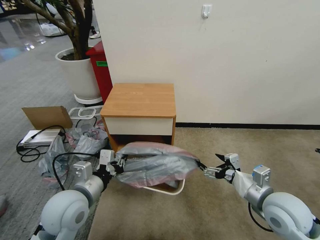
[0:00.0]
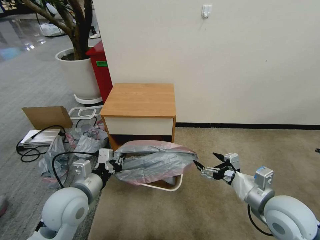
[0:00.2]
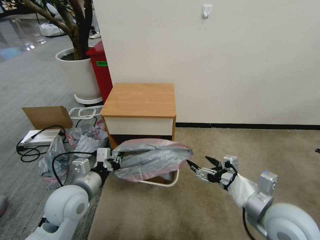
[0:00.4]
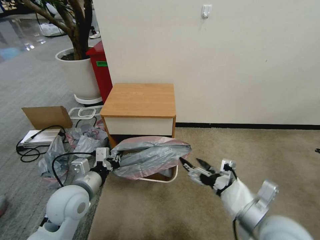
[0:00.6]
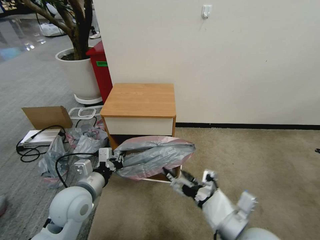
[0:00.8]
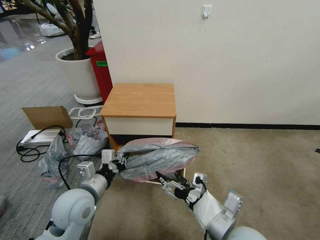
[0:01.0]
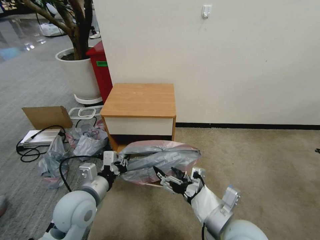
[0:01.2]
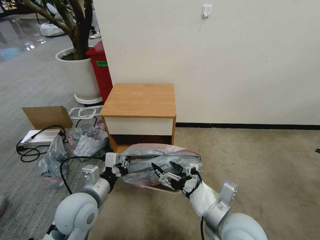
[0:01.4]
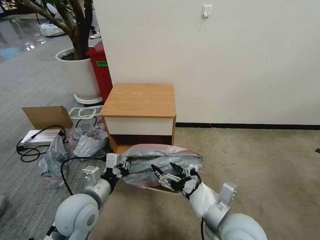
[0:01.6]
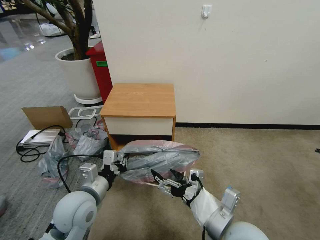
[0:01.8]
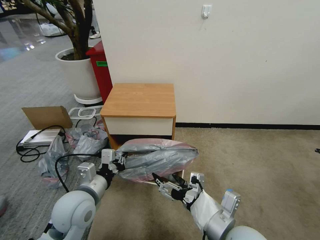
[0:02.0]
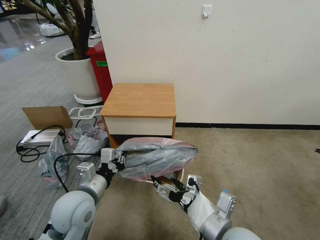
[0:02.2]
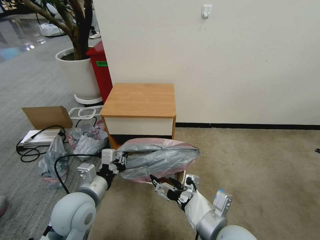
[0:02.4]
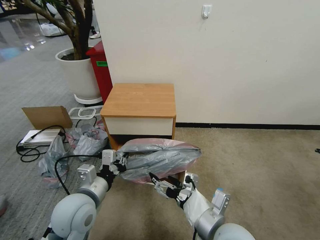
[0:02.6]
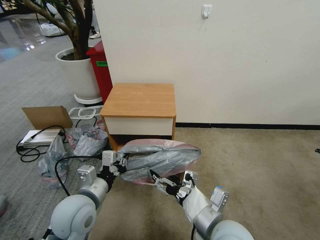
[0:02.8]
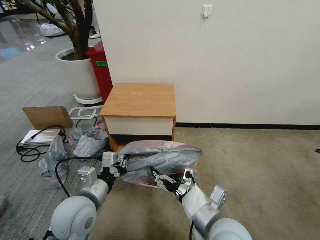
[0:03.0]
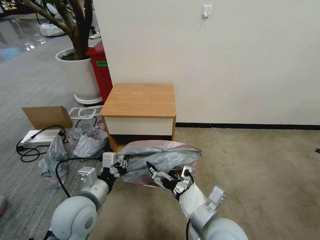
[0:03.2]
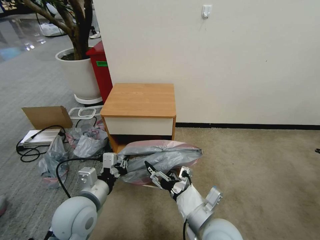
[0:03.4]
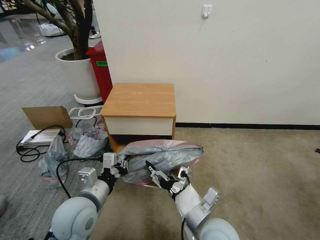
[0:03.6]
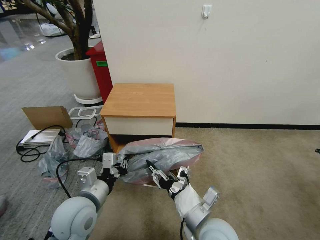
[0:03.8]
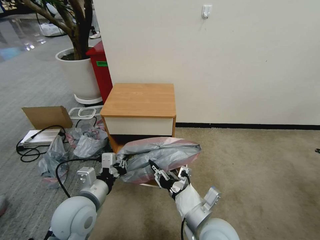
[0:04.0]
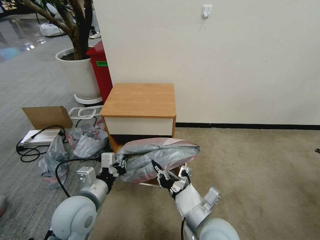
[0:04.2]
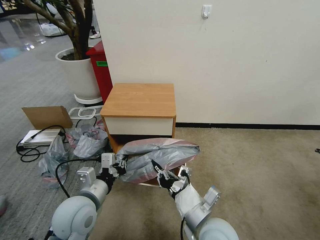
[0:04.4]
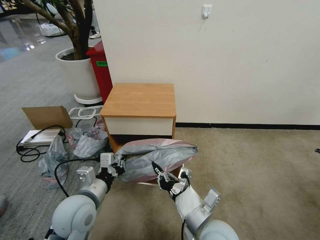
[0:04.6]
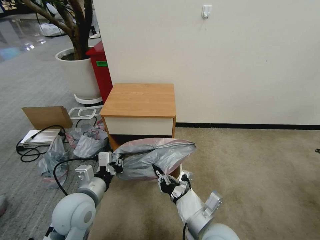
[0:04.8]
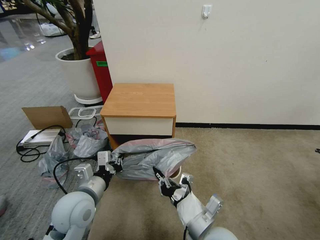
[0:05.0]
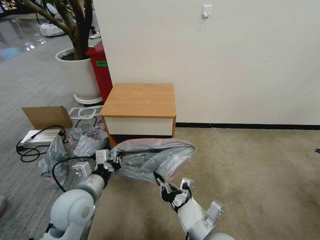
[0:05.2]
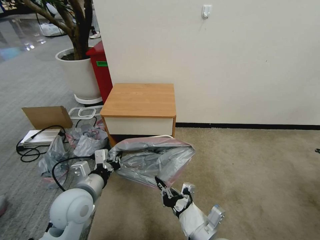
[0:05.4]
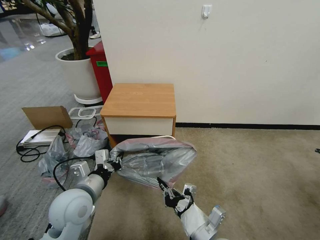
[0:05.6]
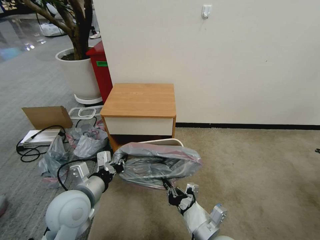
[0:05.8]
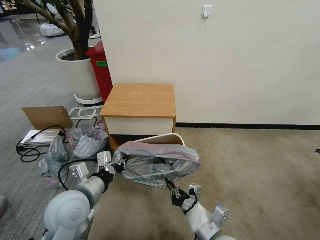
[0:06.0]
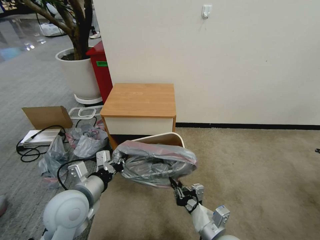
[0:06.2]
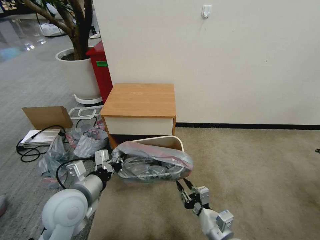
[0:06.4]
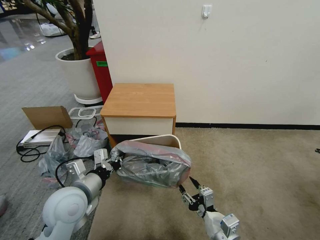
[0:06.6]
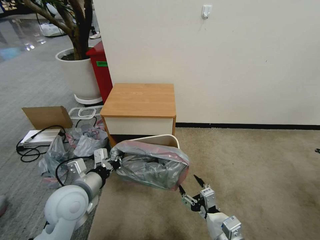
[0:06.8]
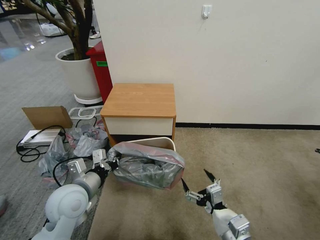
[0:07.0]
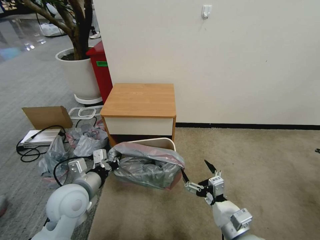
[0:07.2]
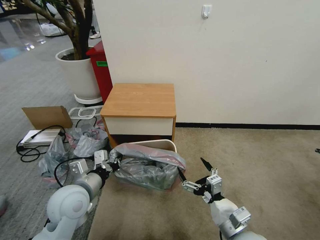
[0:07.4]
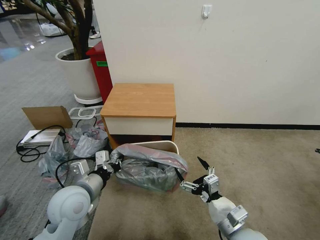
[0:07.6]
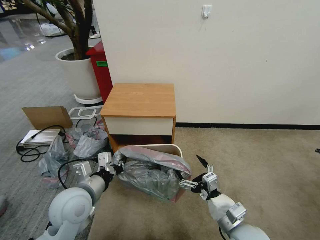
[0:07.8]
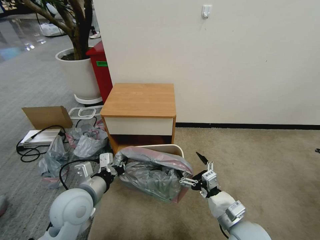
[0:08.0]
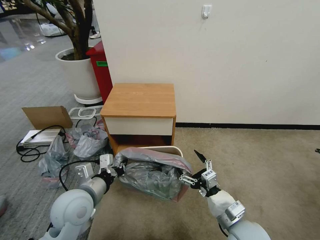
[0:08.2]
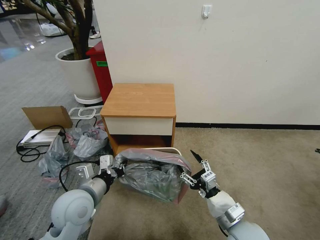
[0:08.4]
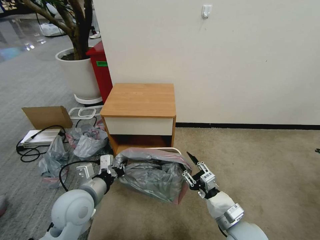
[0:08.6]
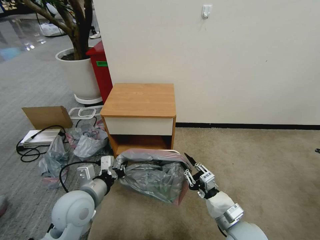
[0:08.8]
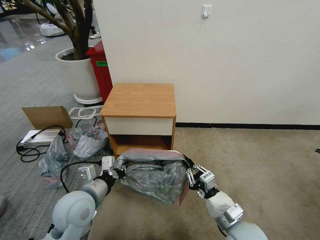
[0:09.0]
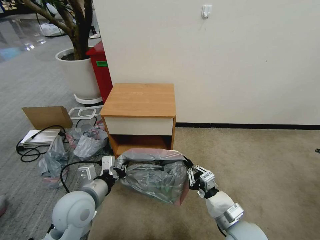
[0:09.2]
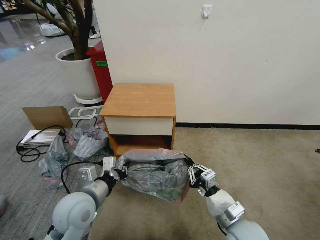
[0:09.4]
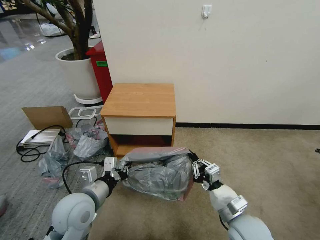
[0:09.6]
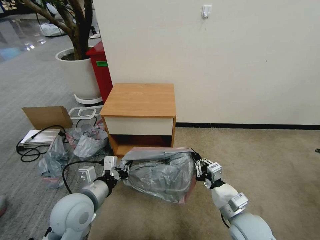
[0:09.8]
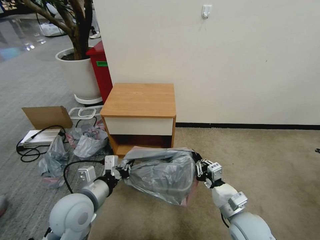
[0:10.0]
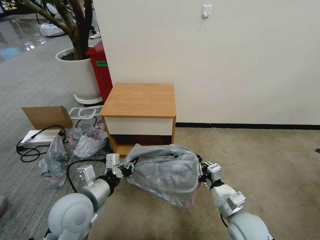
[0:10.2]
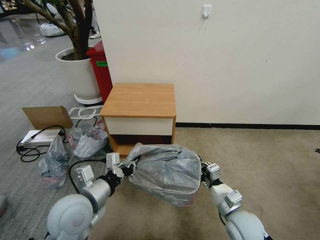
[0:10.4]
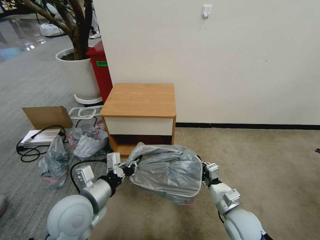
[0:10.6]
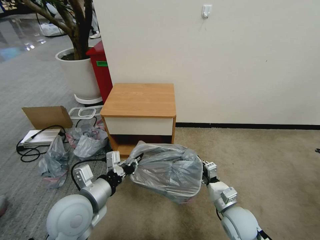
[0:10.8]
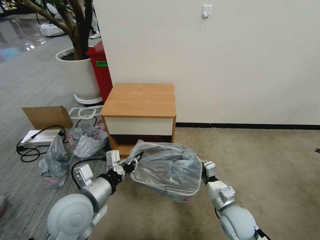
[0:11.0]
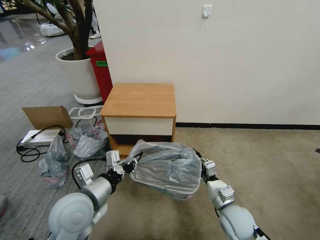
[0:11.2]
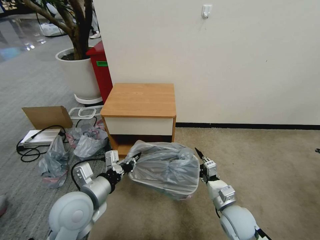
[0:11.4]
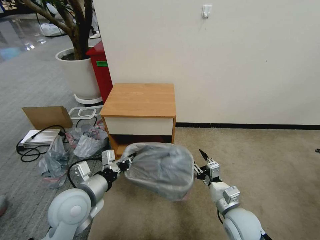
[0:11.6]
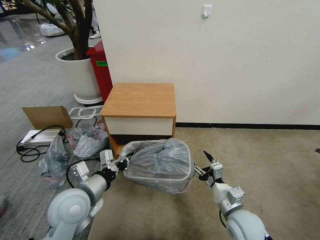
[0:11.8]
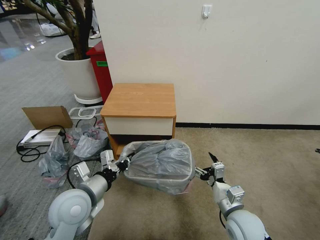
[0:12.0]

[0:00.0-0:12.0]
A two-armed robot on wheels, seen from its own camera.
Task of the whole recording: Pick up the garbage bag from the table and place it over the trash can.
0:00.0 to 0:01.6: The right gripper goes about 15 cm to the left.
0:01.6 to 0:03.0: The grippers stay close to where they were, moving slightly.
0:03.0 to 0:04.4: The right gripper closes.
0:04.4 to 0:06.0: The right gripper travels downward by approximately 5 cm.
0:06.0 to 0:07.6: The right gripper travels to the right by about 5 cm, and opens.
0:07.6 to 0:09.0: The right gripper closes up.
0:09.0 to 0:10.4: The right gripper shifts by some 5 cm.
0:10.4 to 0:12.0: The right gripper opens.

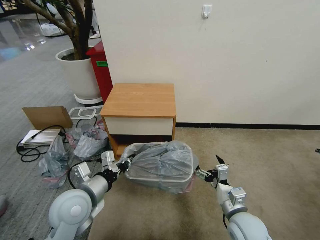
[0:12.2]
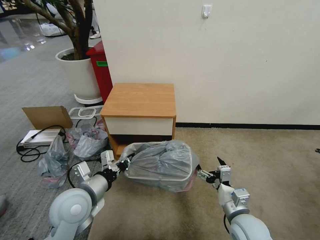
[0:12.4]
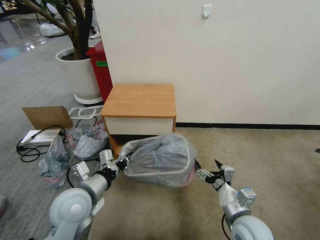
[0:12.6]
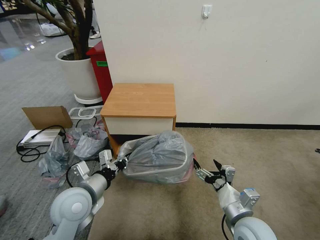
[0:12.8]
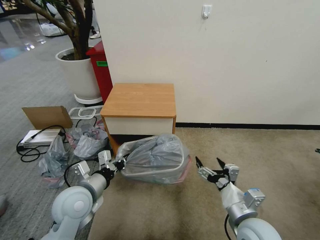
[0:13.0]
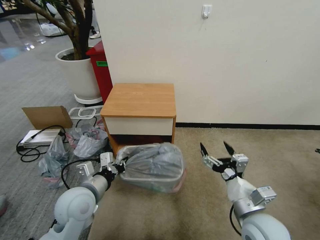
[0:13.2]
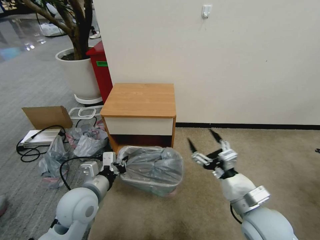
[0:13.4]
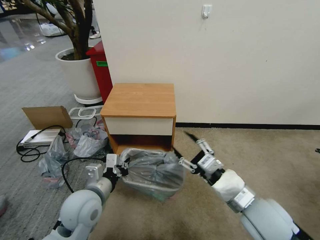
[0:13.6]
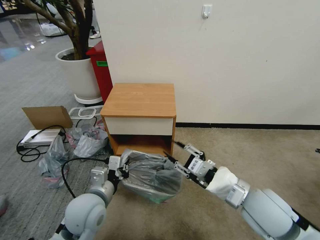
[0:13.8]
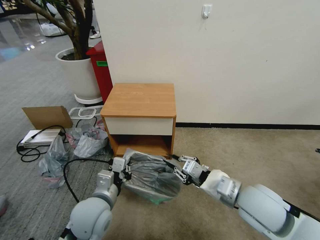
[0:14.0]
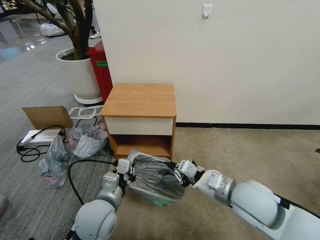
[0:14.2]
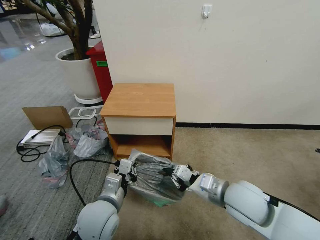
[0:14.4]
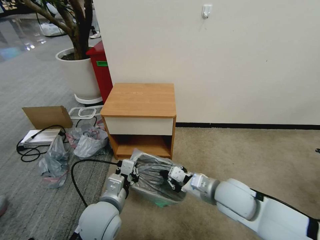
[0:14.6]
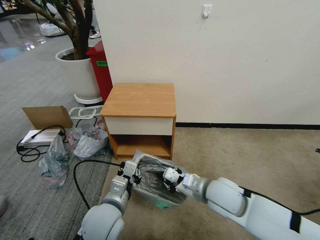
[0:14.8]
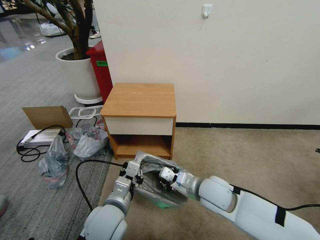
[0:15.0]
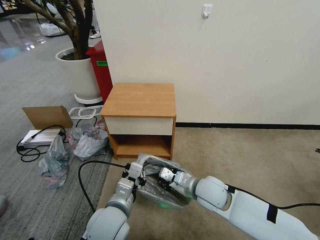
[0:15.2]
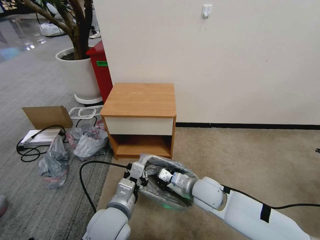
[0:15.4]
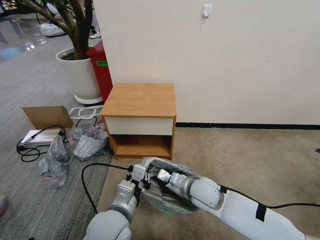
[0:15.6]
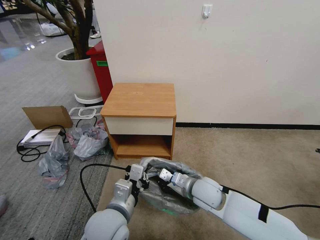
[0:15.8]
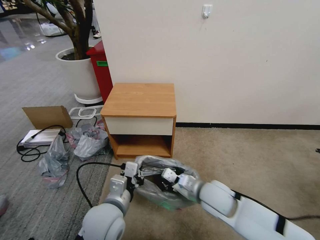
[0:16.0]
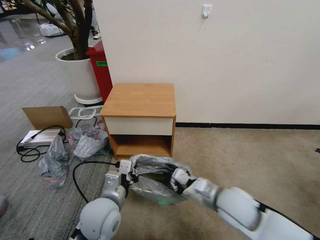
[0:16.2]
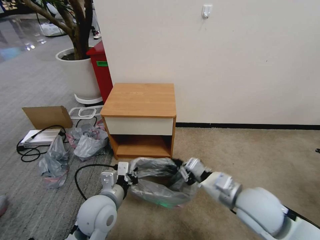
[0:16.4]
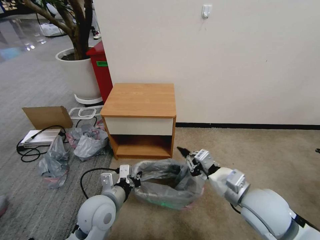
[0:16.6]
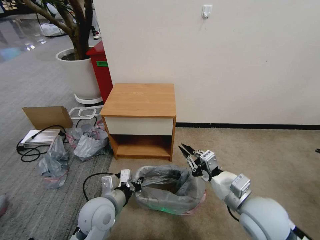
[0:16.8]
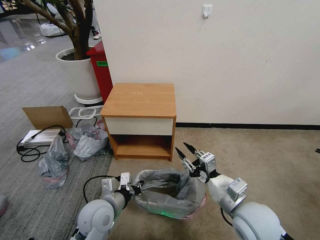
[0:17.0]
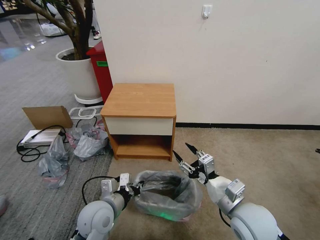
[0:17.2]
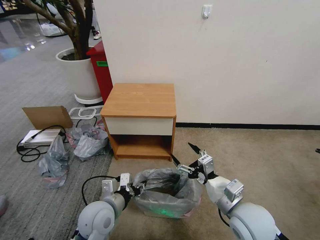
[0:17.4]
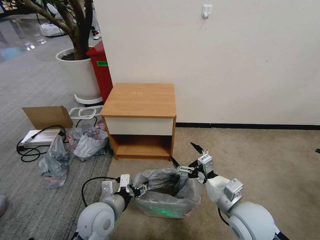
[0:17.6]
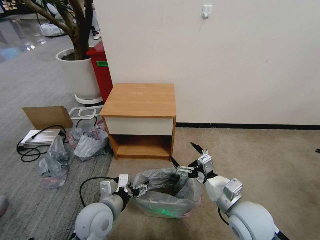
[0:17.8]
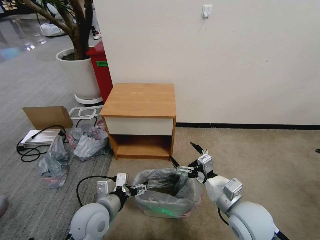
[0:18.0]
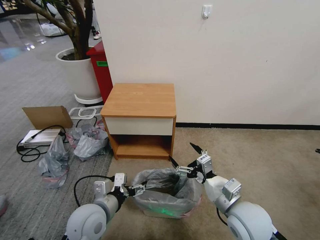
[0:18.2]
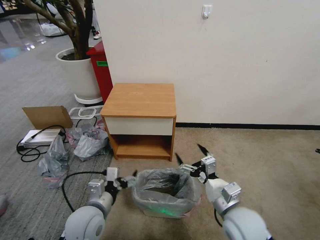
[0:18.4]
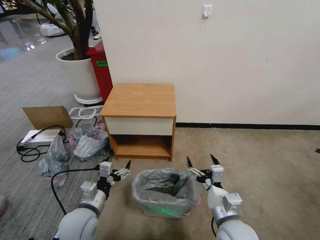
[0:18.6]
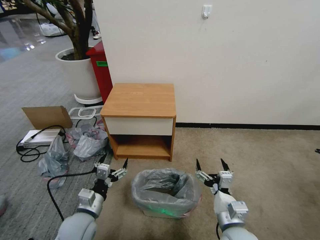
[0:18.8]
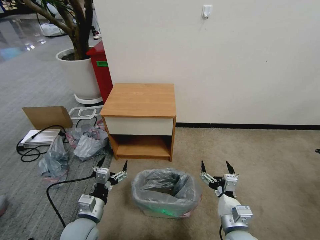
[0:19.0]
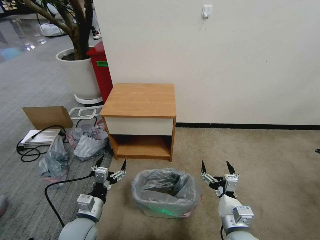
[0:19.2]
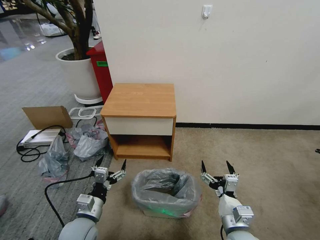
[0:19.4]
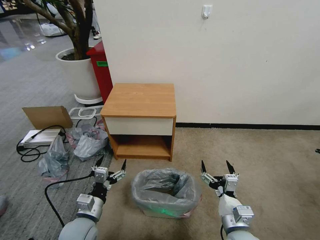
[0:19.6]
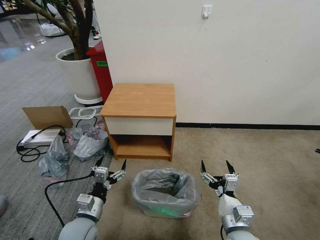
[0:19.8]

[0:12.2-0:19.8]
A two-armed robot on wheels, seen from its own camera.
Task of the whole recording: Pick up the garbage bag from the table and place it over the trash can.
0:12.2 to 0:13.8: The right gripper travels upward by approximately 10 cm, and closes.
0:13.8 to 0:15.2: The left gripper shifts approximately 10 cm to the right, while the right gripper shifts some 15 cm forward, to the left and downward, and closes its fingers.
0:15.2 to 0:16.8: The right gripper shifts about 15 cm backward, to the right and upward, while the left gripper moves approximately 5 cm.
0:16.8 to 0:18.2: The right gripper opens. The left gripper opens up.
0:18.2 to 0:19.8: The right gripper is displaced downward and backward by roughly 10 cm. Meanwhile the left gripper is displaced downward by approximately 5 cm.

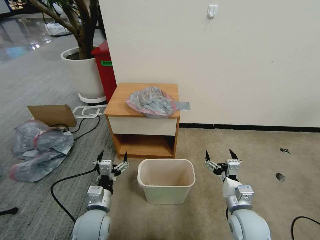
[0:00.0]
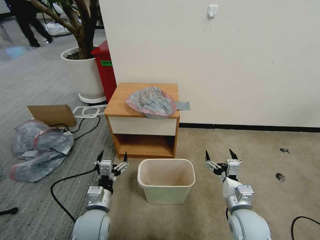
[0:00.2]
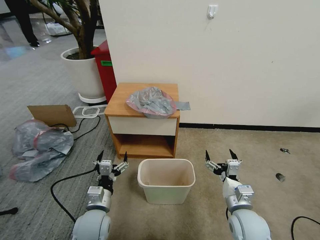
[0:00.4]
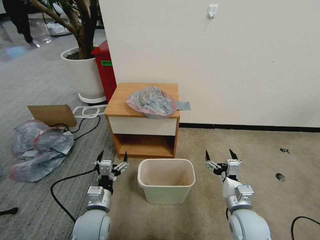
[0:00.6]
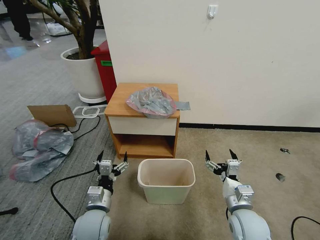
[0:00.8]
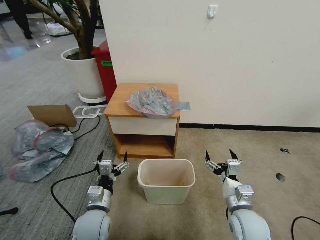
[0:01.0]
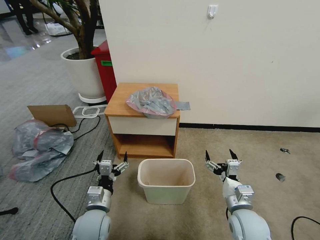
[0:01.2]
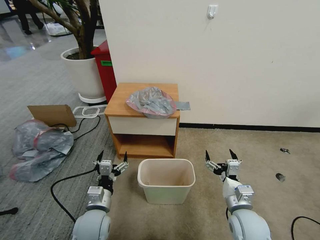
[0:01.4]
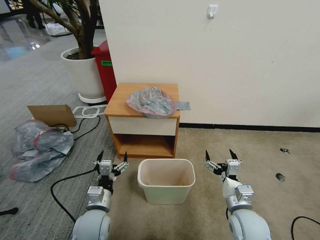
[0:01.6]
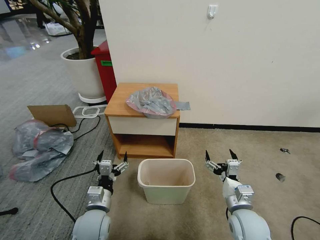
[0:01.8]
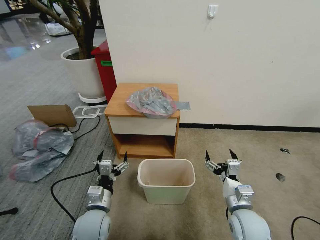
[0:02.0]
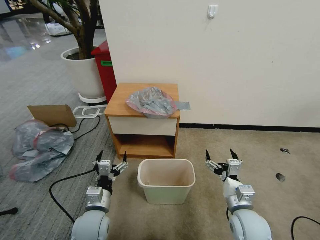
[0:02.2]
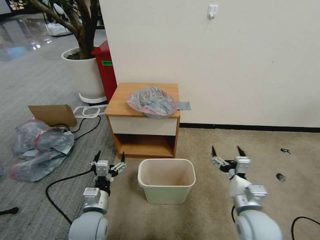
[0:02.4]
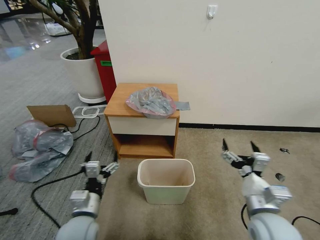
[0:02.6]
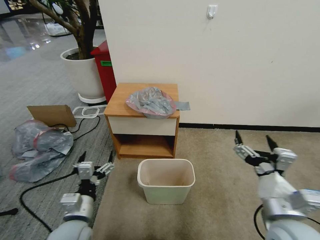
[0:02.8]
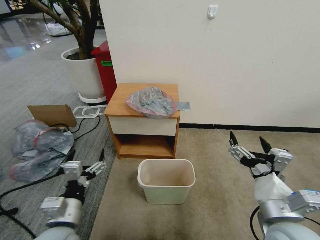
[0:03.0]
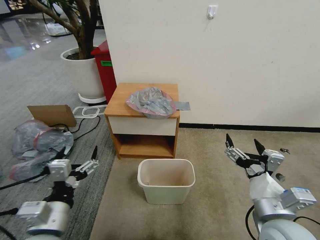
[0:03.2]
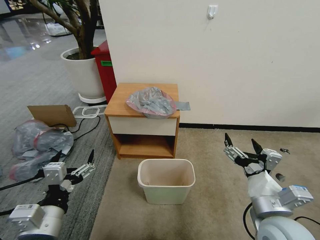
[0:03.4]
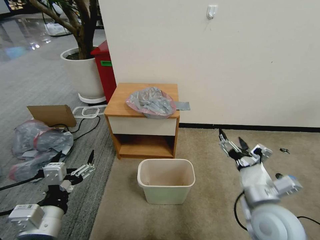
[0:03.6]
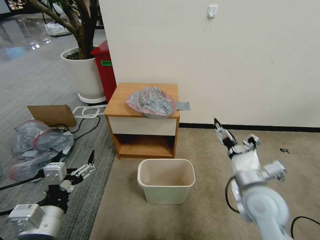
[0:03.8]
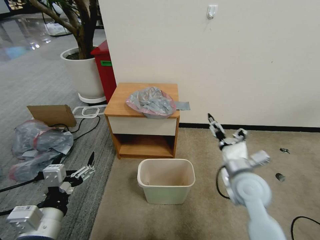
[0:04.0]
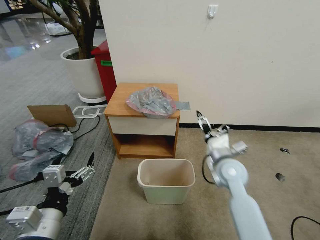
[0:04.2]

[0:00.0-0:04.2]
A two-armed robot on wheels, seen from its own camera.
Task of the whole recording: Pick up the garbage bag from the table and place it over the trash can.
0:01.4 to 0:02.8: The left gripper is displaced upward by approximately 5 cm, while the right gripper travels upward by approximately 15 cm.
0:02.8 to 0:04.2: The right gripper moves forward, about 20 cm. Meanwhile the left gripper goes some 10 cm upward and backward.
